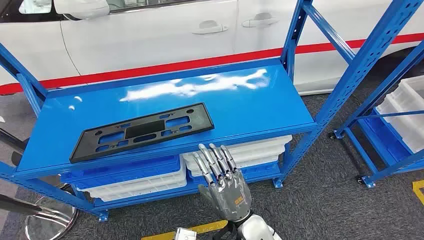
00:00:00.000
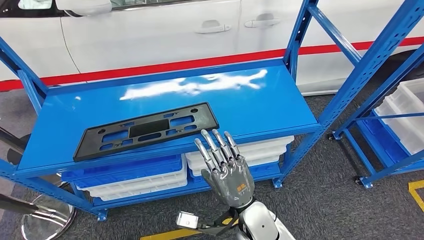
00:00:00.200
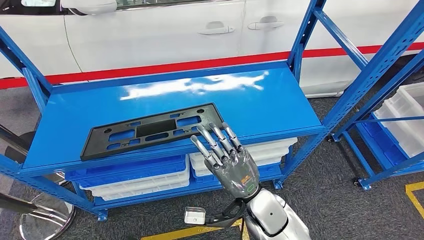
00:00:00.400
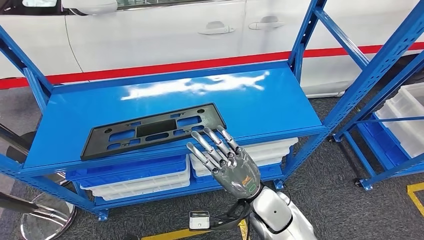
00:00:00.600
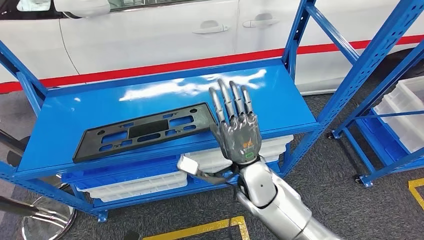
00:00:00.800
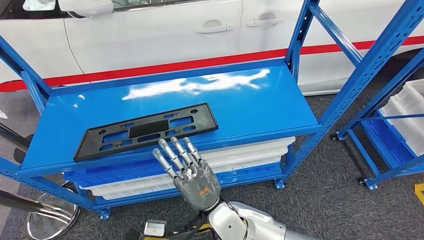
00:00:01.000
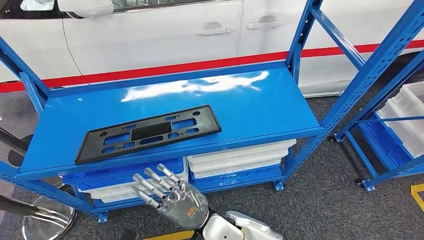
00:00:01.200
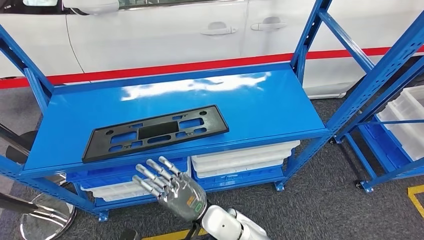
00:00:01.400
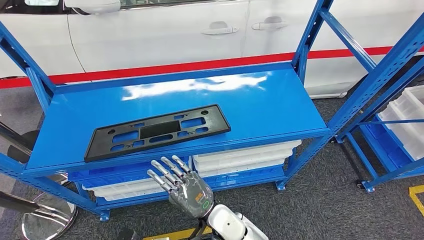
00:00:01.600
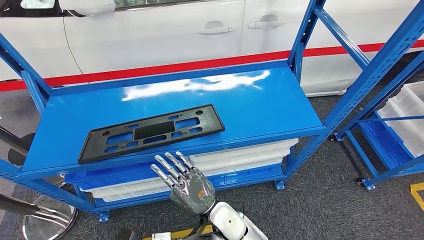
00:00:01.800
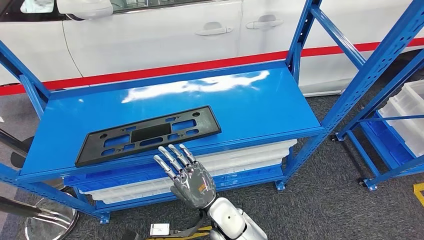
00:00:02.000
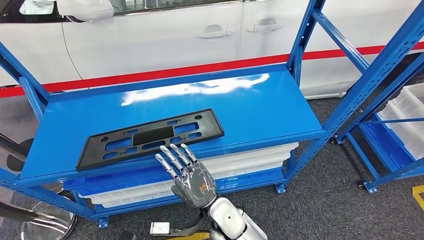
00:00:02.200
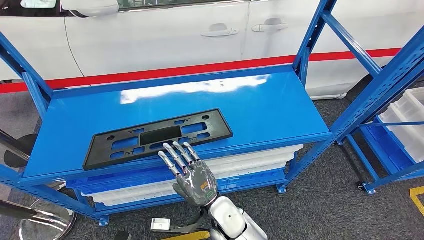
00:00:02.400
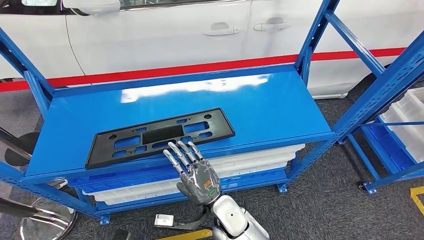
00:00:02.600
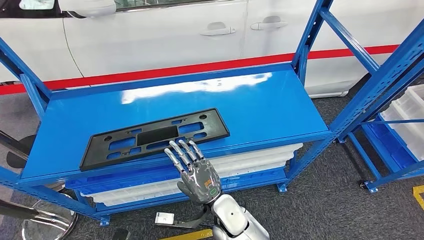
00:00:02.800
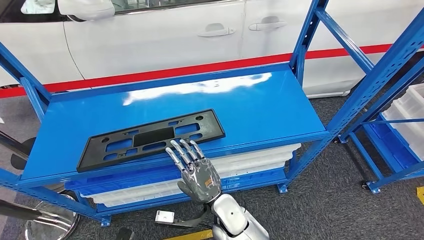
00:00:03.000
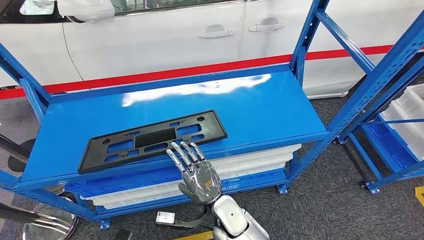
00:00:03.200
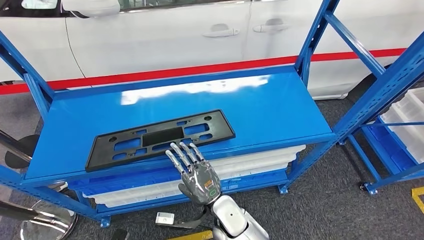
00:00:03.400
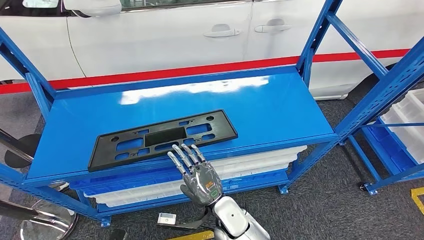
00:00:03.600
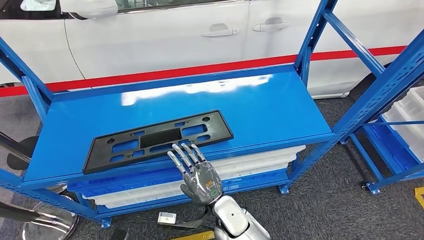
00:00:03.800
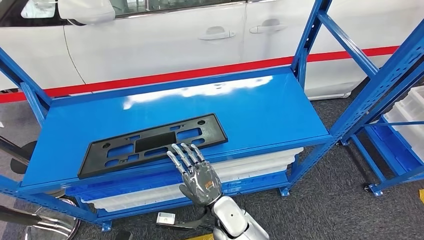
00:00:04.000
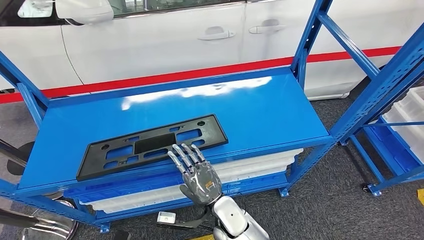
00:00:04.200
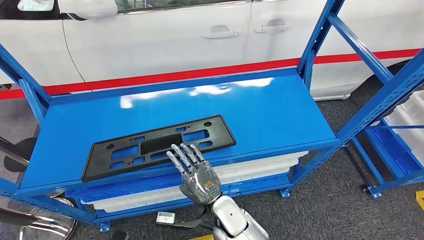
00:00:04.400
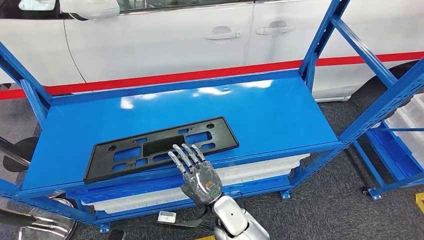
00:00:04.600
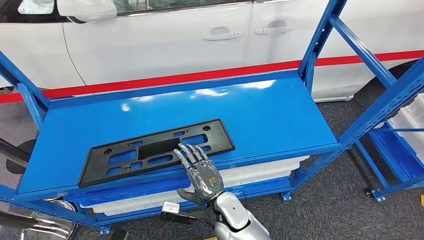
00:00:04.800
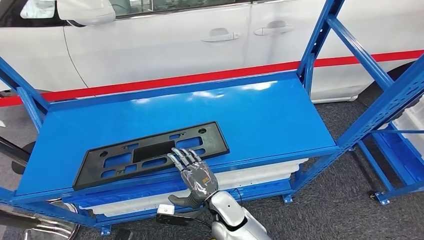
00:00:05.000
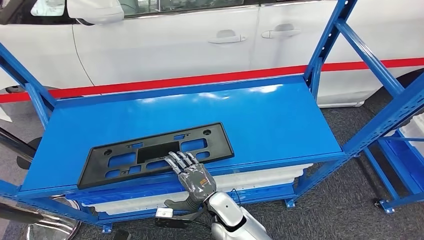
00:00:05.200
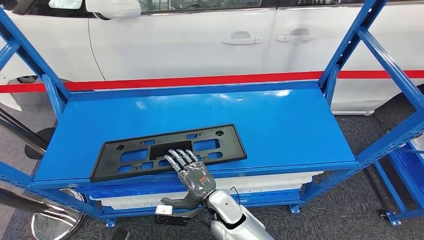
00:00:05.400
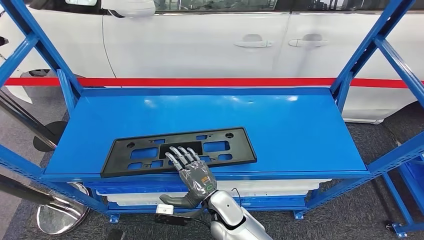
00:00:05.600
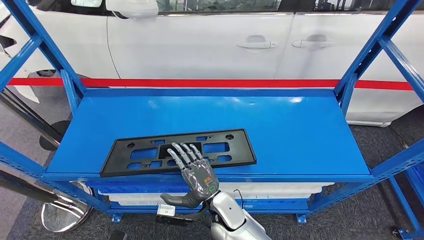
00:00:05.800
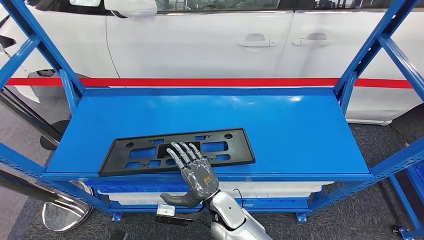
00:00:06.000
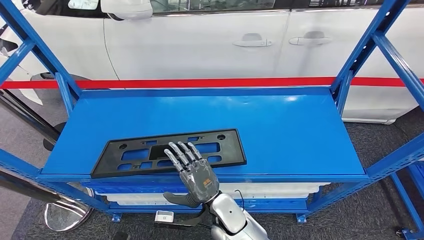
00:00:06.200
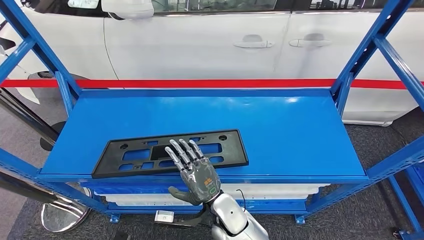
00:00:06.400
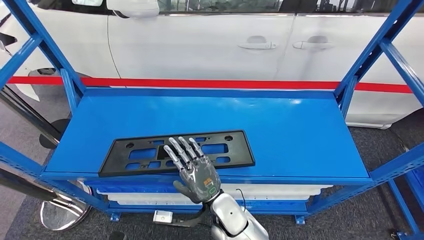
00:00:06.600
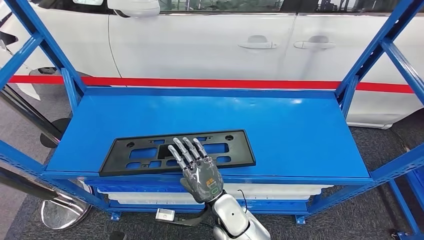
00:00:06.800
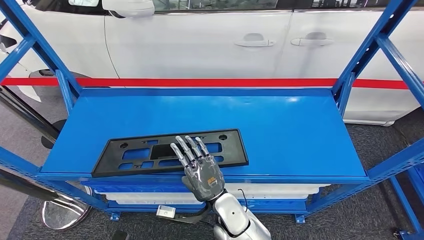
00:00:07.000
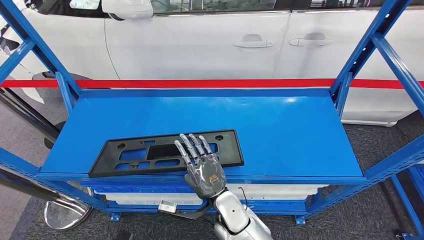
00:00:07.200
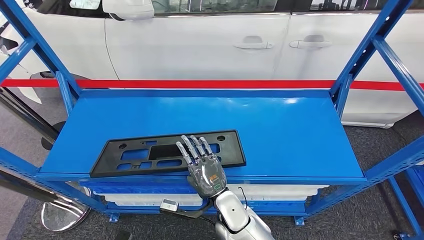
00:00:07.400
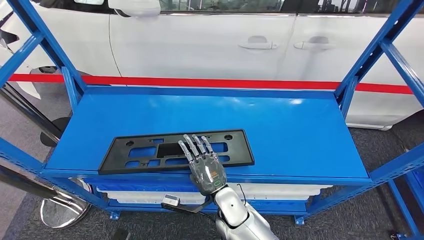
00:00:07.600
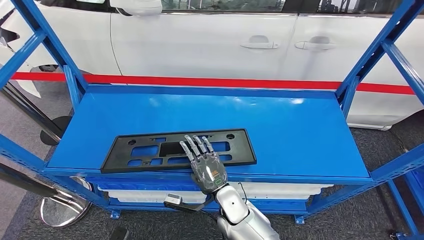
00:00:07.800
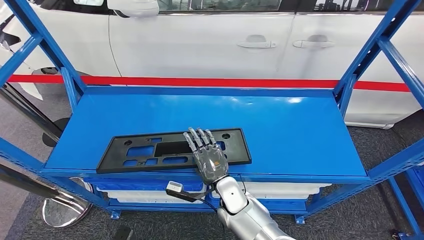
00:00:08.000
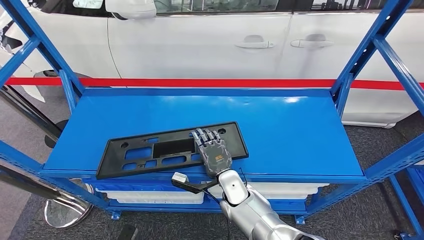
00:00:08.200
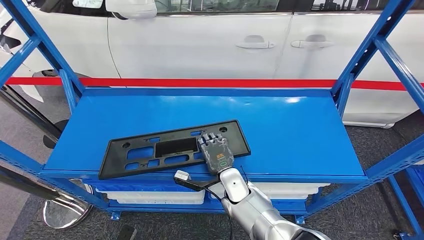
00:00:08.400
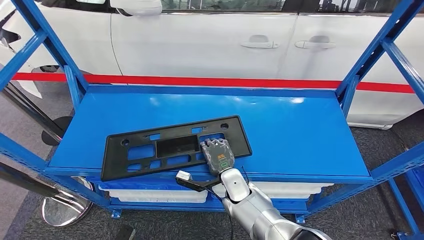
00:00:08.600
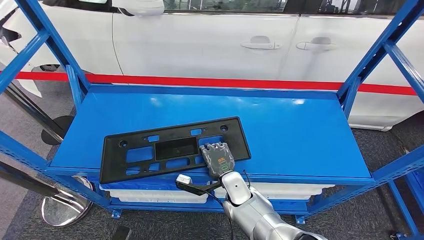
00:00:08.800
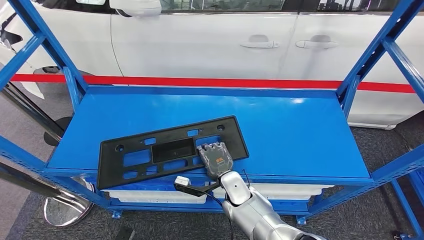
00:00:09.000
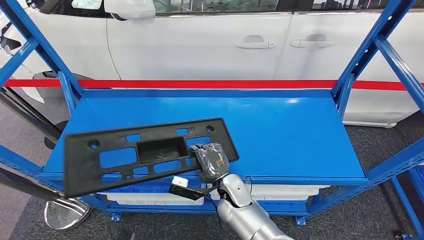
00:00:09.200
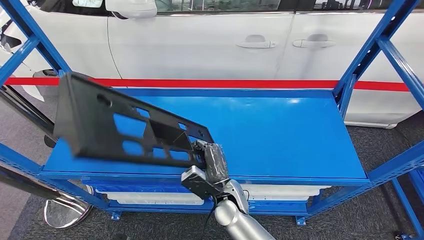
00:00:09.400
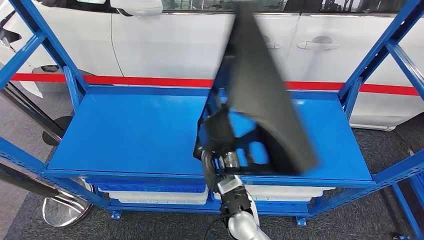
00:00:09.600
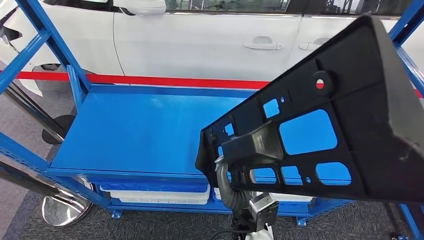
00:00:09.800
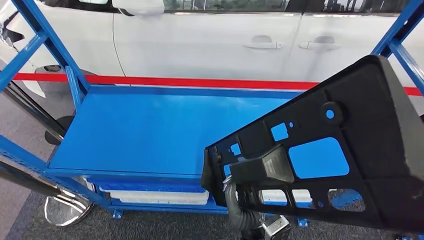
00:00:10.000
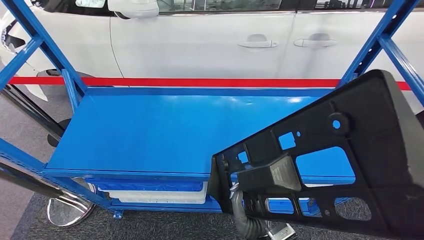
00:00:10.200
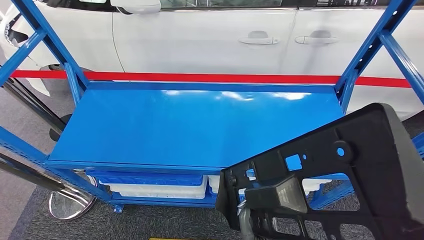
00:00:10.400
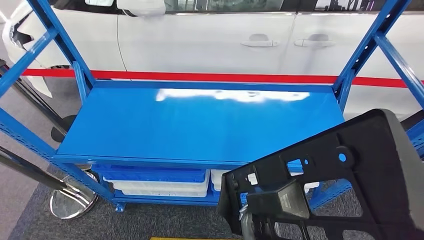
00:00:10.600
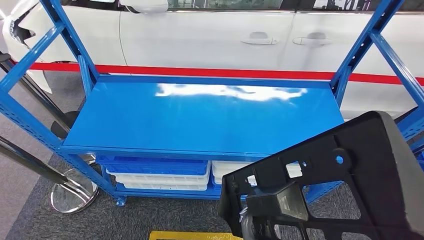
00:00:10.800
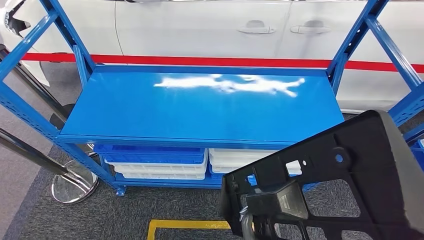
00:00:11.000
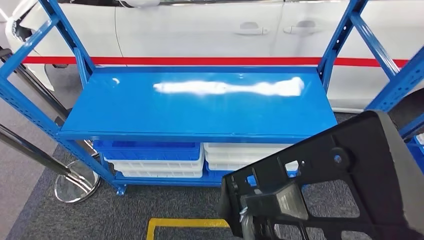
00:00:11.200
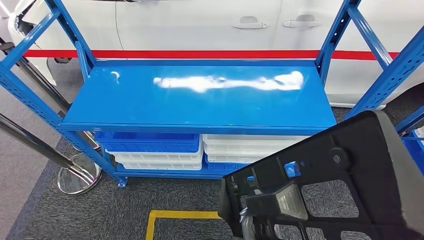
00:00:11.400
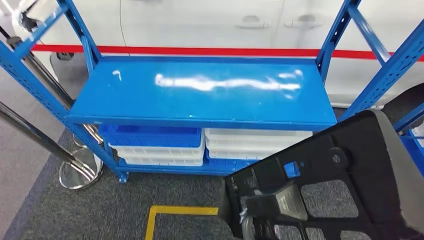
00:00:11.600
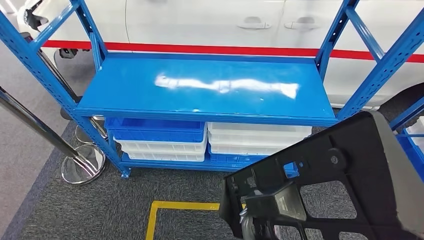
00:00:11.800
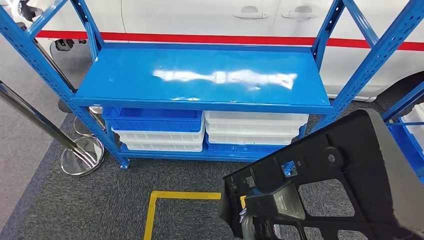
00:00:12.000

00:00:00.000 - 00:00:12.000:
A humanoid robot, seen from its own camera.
Step, 00:00:00.000 - 00:00:10.600: Pick up the large material from the shelf.
00:00:07.600 - 00:00:09.000: The right hand changes place by some 5 cm.

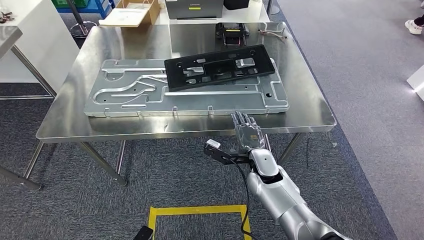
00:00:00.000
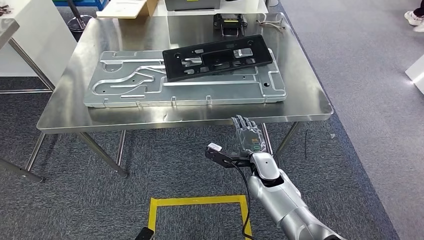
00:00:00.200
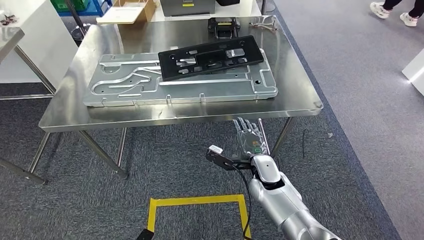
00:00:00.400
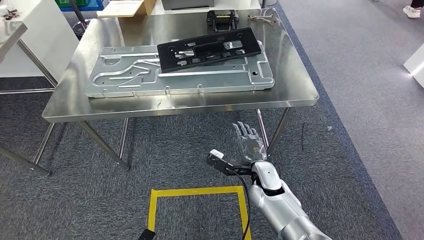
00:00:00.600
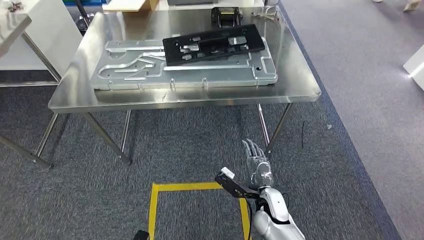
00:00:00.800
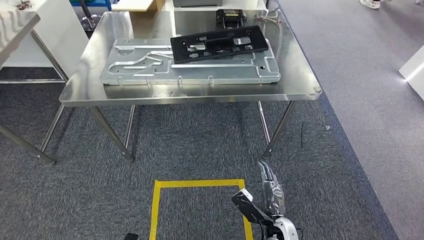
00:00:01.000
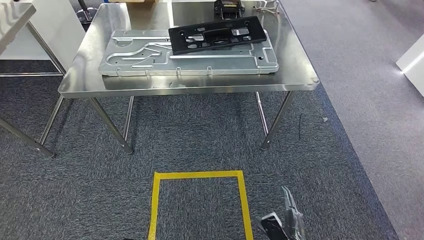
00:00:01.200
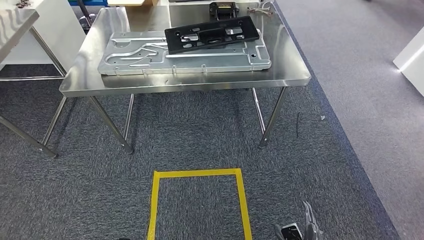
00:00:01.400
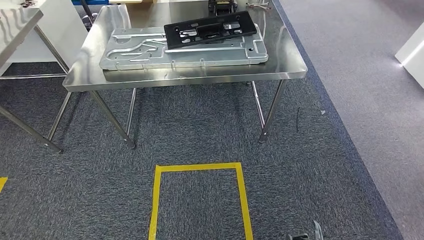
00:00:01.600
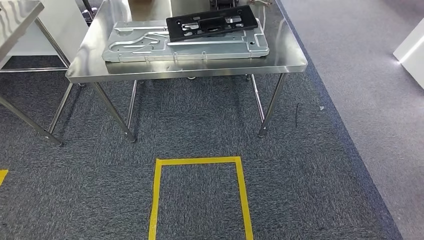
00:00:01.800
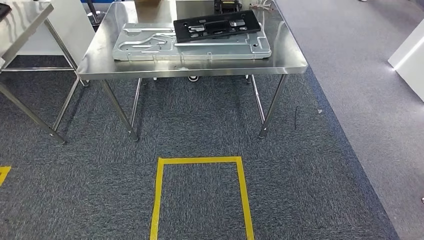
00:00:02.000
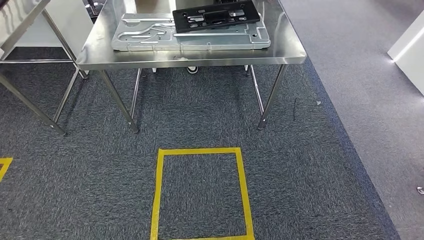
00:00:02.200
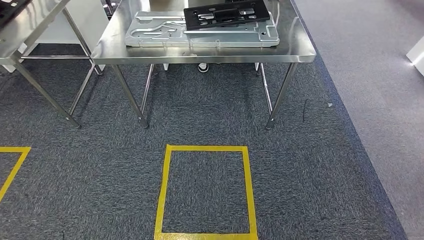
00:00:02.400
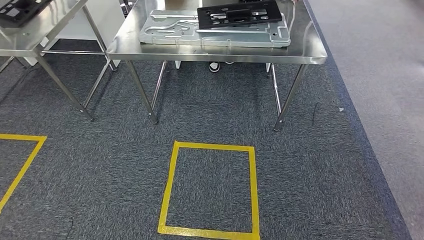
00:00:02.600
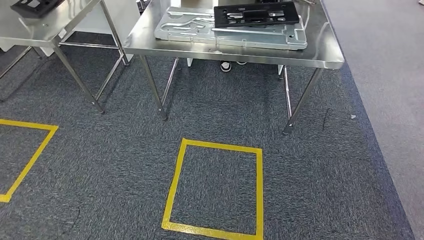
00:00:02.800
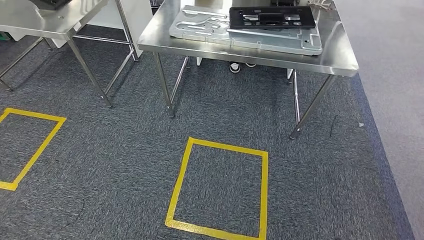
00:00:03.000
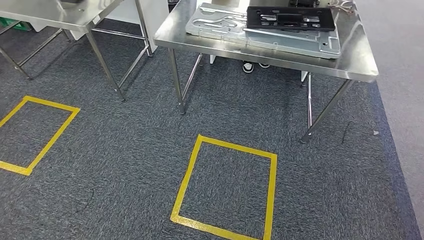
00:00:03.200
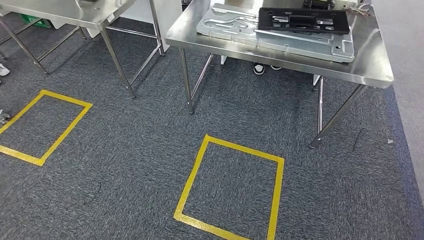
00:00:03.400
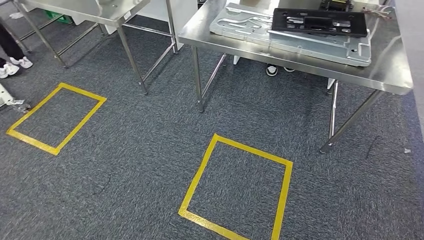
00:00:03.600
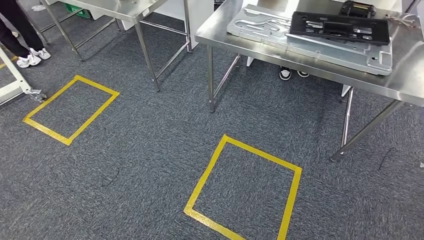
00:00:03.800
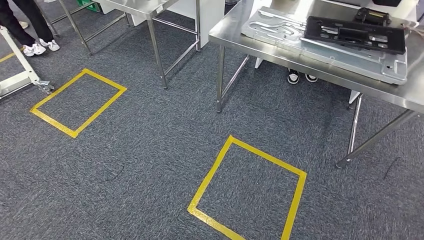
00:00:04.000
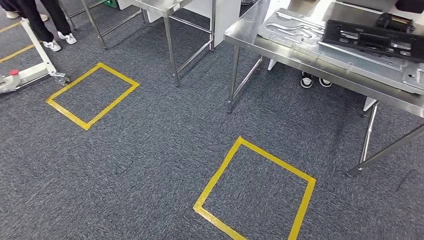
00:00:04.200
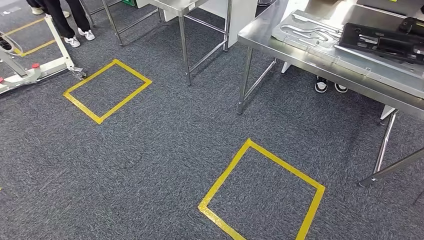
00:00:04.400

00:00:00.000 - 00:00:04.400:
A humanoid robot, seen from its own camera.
Step, 00:00:00.400 - 00:00:04.200: Move to the initial position of the shelf.
